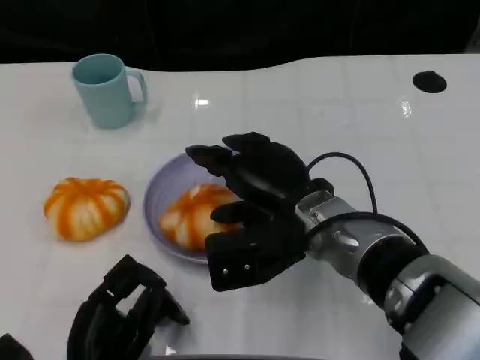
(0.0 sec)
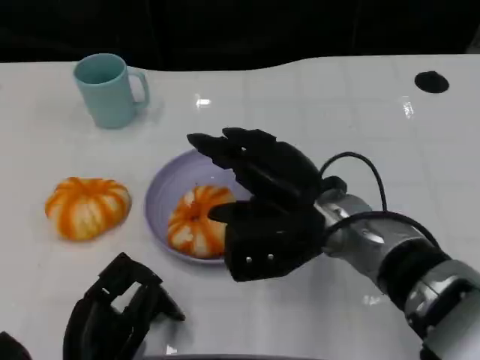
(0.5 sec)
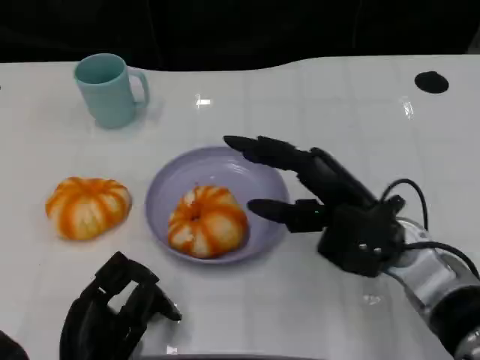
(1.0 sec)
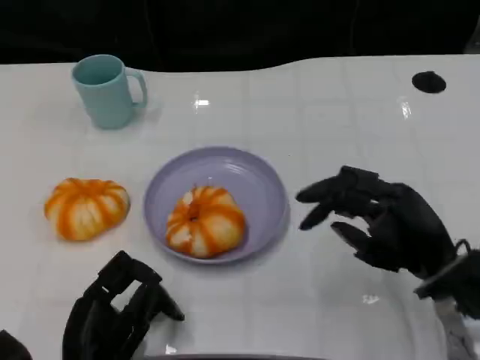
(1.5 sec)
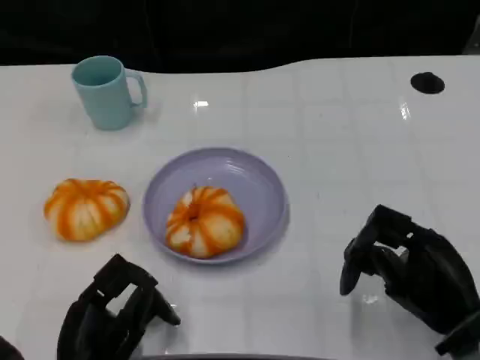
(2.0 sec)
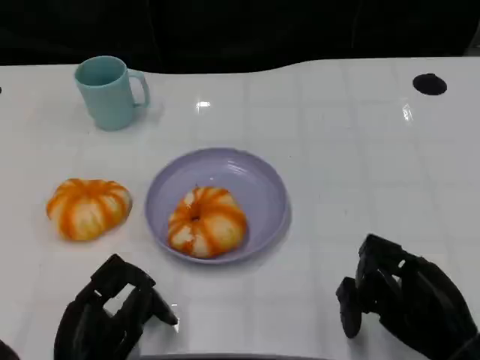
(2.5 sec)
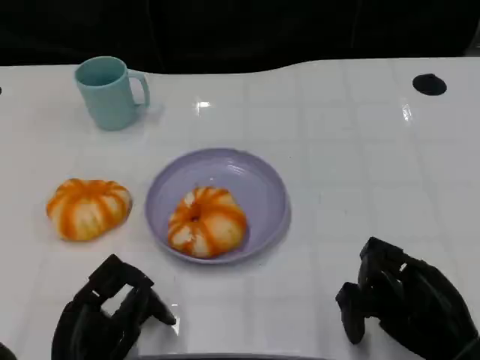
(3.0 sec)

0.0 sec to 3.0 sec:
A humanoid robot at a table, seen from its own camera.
Task of the whole recording: Grasp the bread from the table and place it into the plate.
0.0 sec to 1.5 sec: The right hand goes roughly 15 cm to the right.
1.5 sec to 3.0 sec: The right hand is displaced backward by roughly 5 cm.

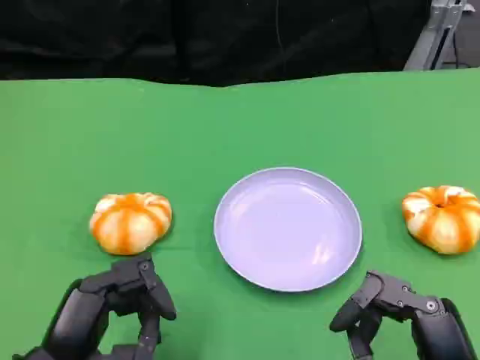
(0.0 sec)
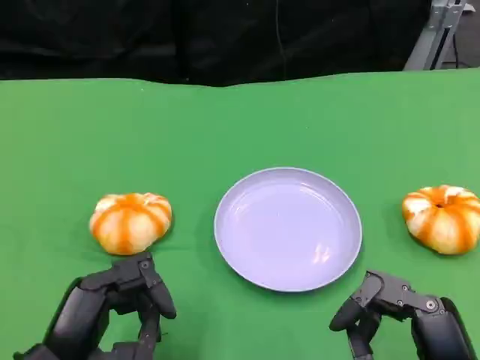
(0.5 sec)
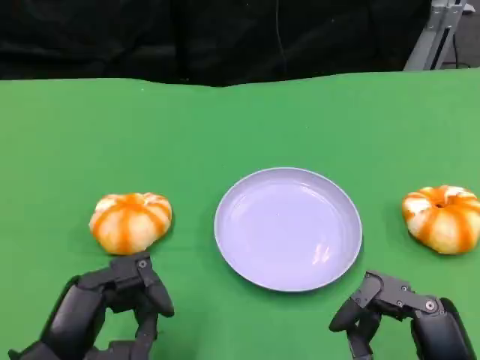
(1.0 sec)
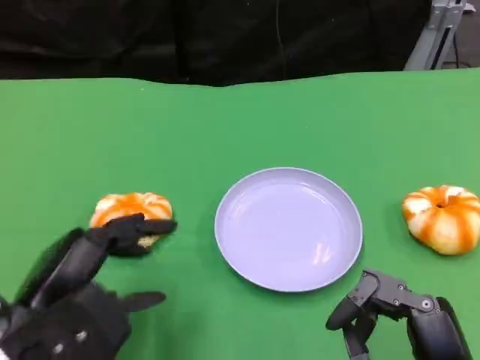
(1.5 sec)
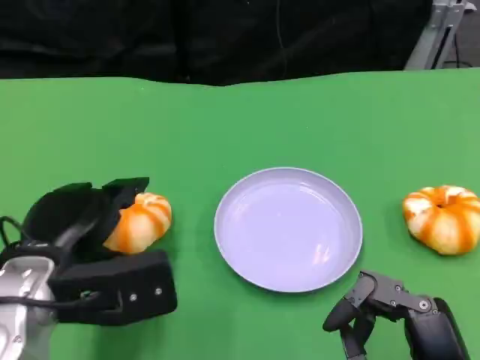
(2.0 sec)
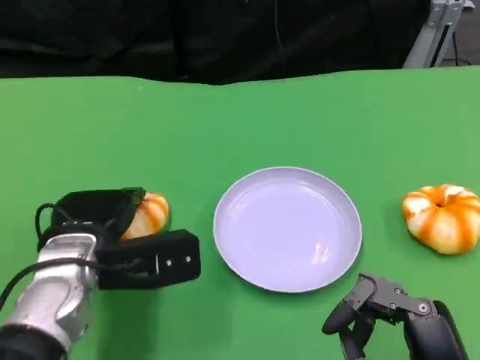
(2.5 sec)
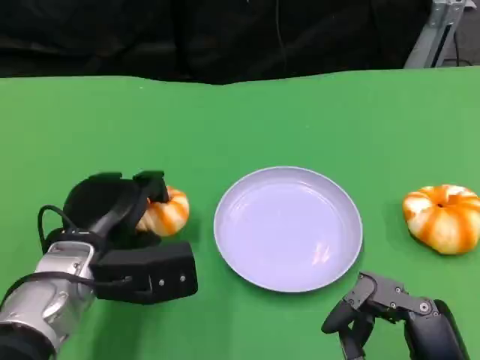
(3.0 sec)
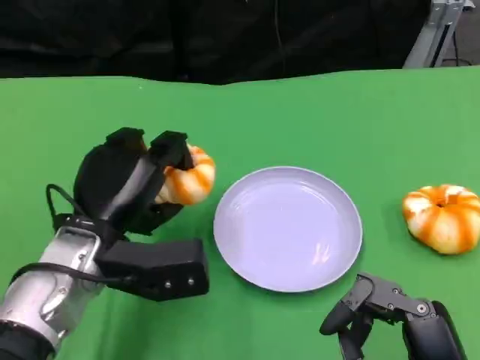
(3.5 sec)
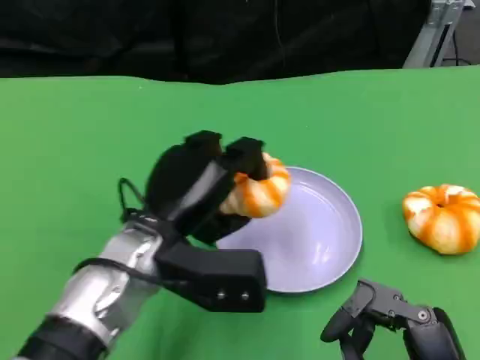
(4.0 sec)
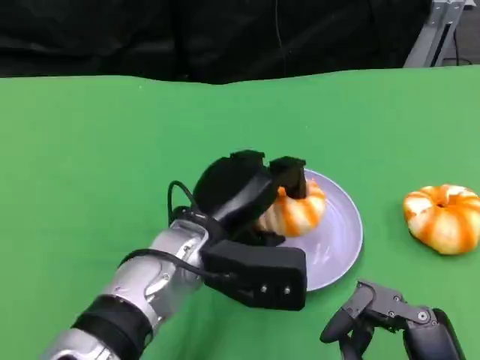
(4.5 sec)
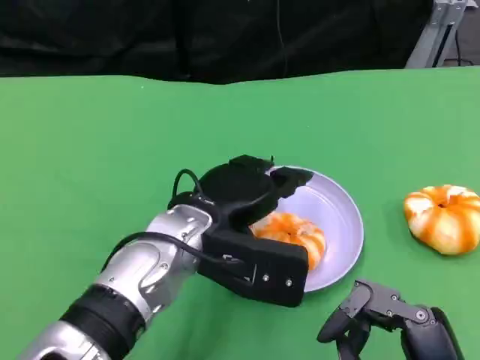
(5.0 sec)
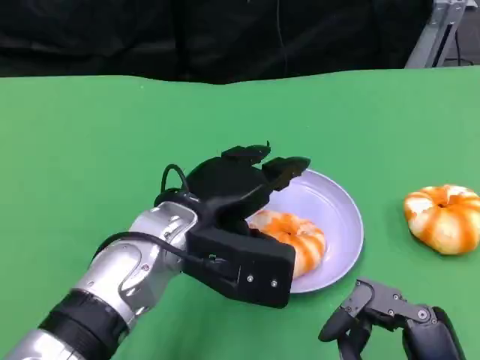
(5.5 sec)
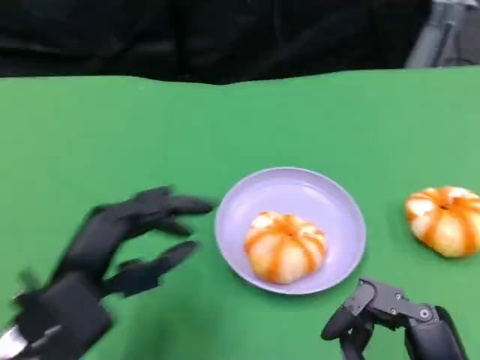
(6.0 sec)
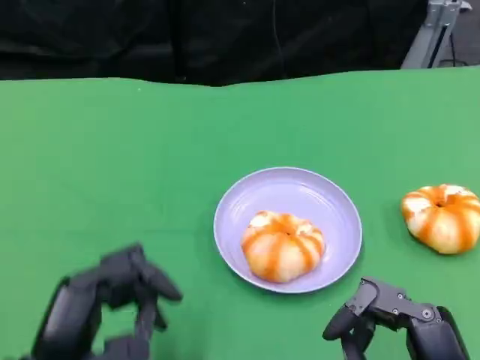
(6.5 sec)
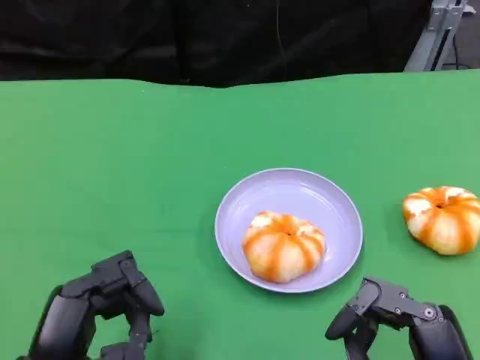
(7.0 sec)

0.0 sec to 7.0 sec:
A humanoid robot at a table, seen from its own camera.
Task of the whole recording: Grasp the bread from the table and place it into the plate.
0.0 sec to 2.0 sec: The left hand goes approximately 10 cm forward.
2.0 sec to 3.5 sec: The left hand ends up about 5 cm from where it was.
3.5 sec to 5.0 sec: The left hand shifts approximately 10 cm to the right.
5.0 sec to 7.0 sec: The left hand heads backward and to the left, covering some 20 cm.

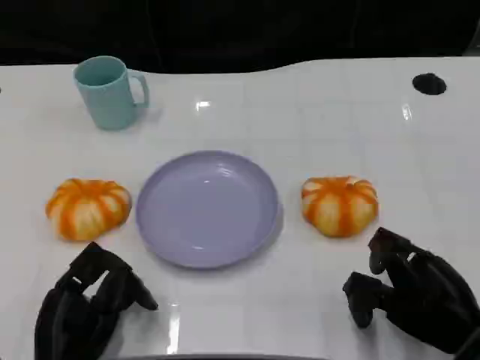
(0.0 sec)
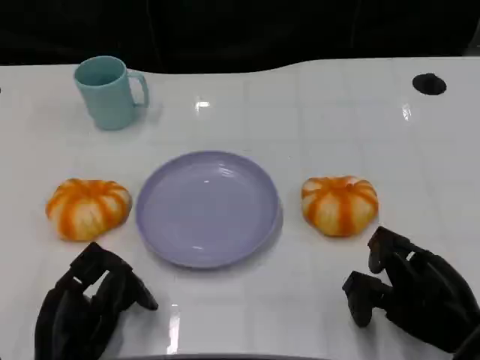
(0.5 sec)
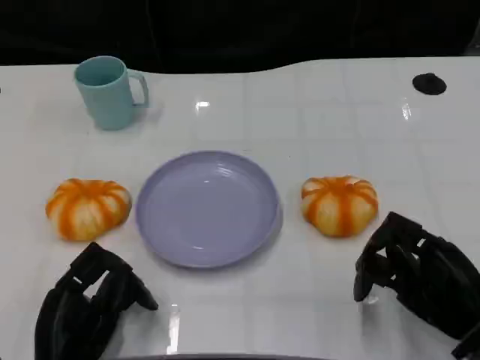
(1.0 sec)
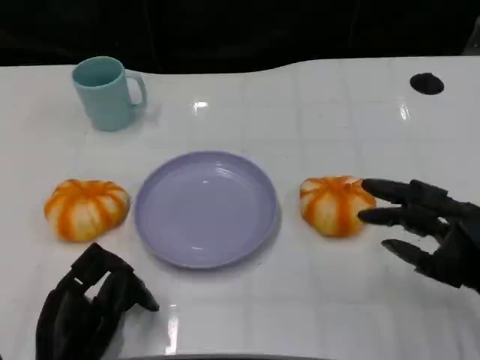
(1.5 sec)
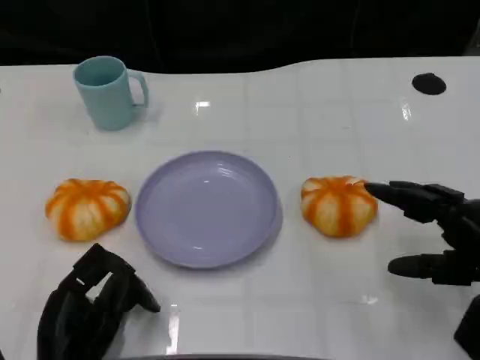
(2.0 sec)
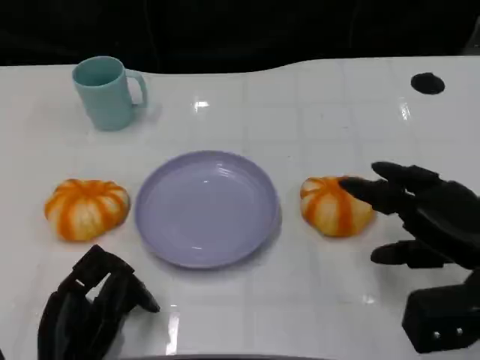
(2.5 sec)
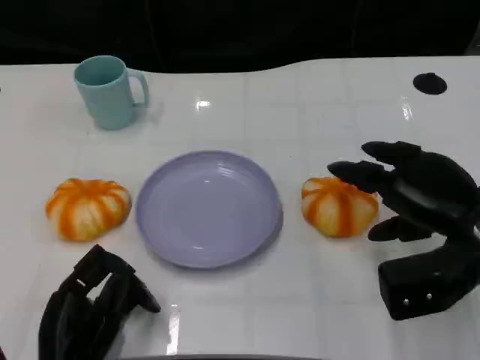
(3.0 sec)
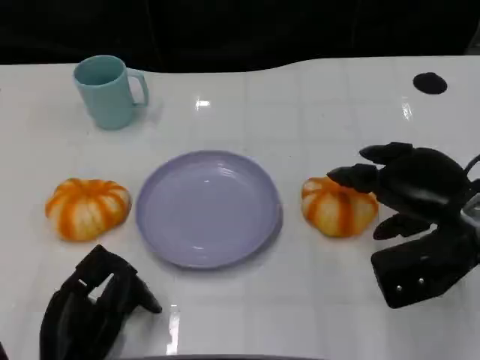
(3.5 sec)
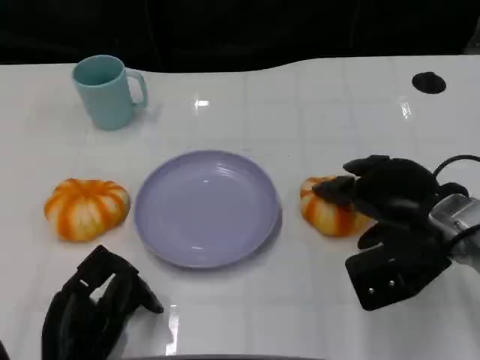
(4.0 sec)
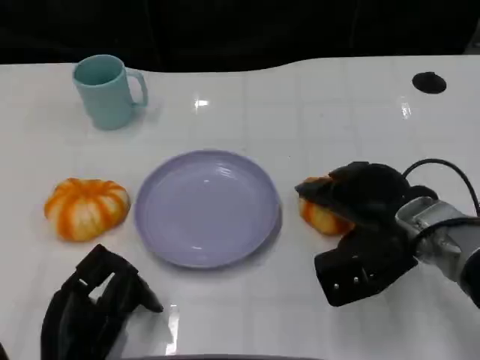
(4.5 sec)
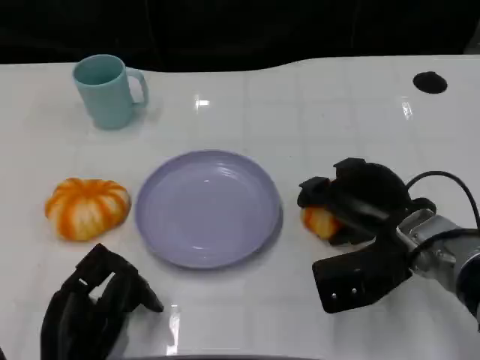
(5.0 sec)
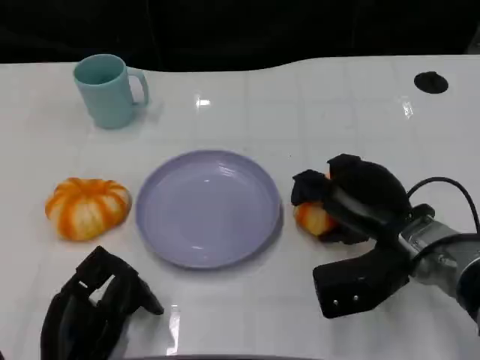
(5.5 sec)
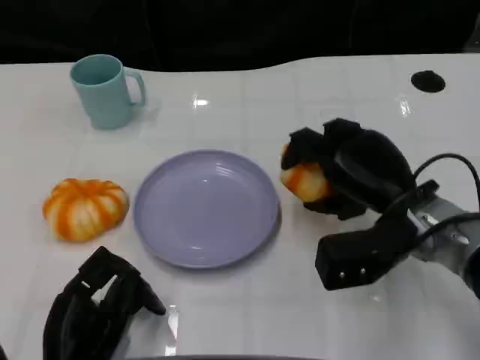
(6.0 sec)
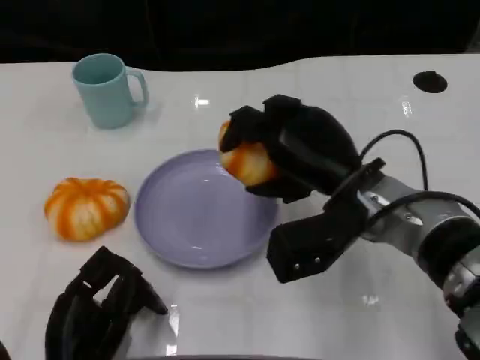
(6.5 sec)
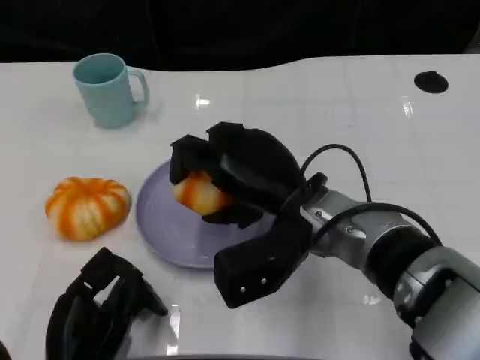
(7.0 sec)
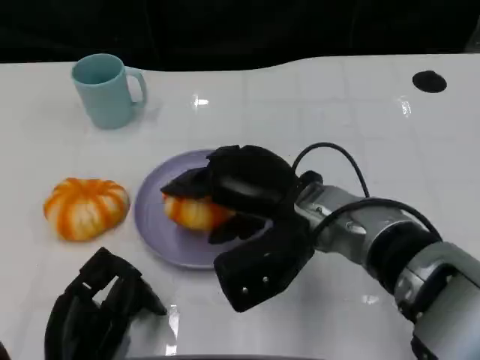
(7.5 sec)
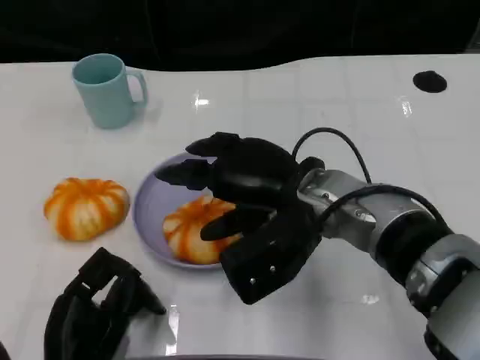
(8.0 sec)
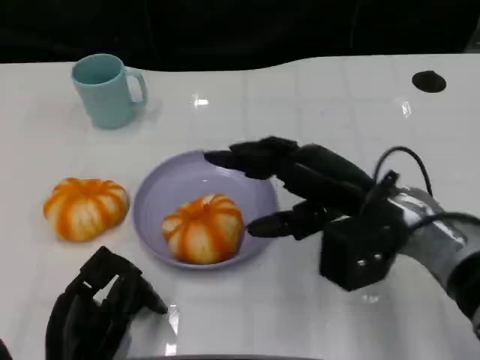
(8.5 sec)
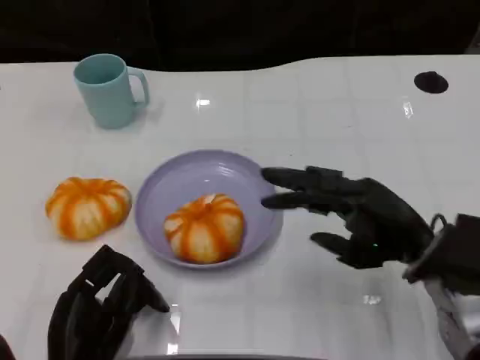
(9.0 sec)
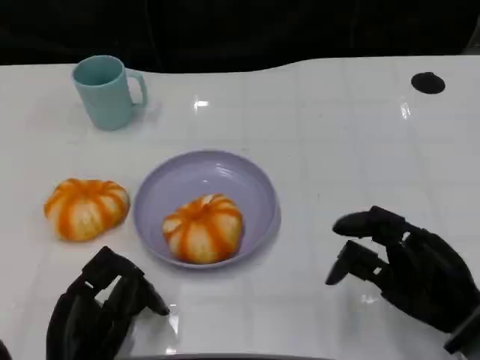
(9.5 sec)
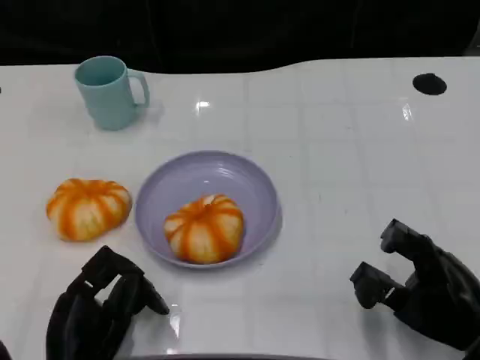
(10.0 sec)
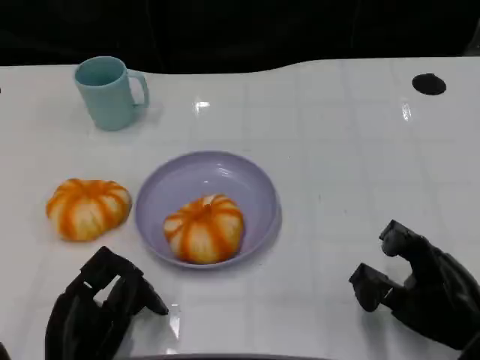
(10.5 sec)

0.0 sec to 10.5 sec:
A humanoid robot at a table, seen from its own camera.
Task of the whole recording: Grasp the bread from the table and place it into the plate.
0.0 sec to 2.0 sec: The right hand heads upward, covering roughly 5 cm.
2.0 sec to 4.0 sec: The right hand is displaced to the left and forward by roughly 10 cm.
4.0 sec to 6.5 sec: The right hand goes approximately 10 cm to the left.
8.5 sec to 10.5 sec: The right hand shifts roughly 15 cm to the right, backward and downward.
